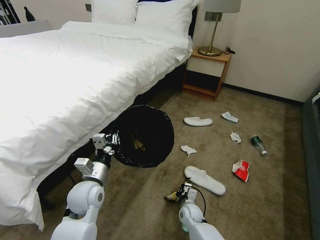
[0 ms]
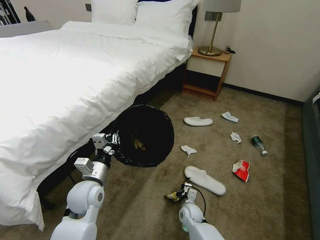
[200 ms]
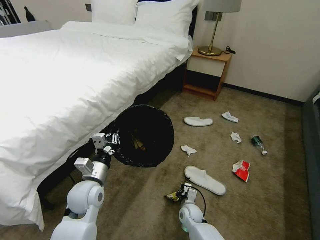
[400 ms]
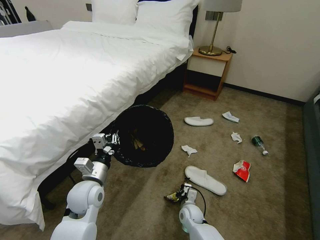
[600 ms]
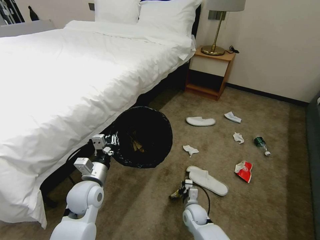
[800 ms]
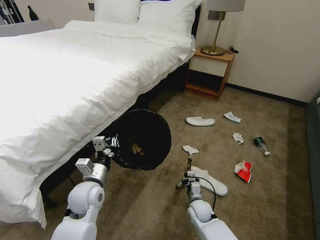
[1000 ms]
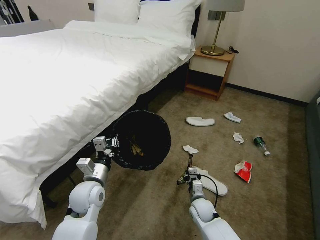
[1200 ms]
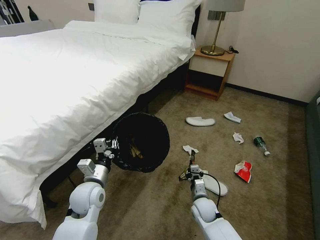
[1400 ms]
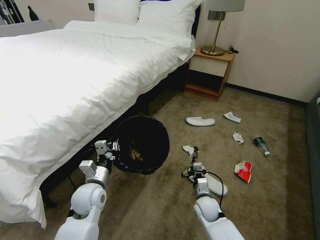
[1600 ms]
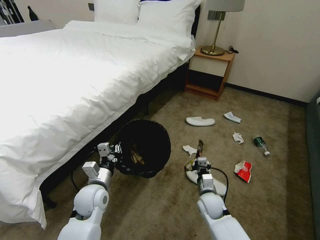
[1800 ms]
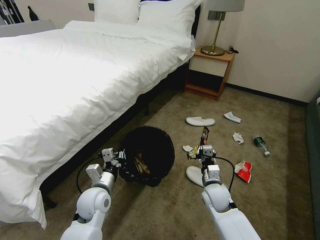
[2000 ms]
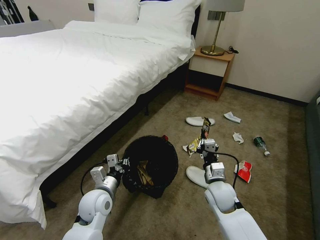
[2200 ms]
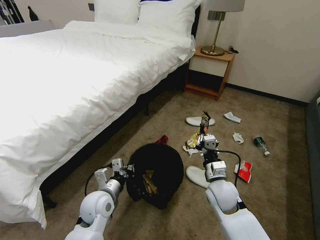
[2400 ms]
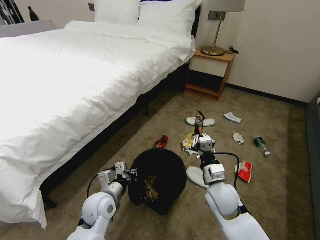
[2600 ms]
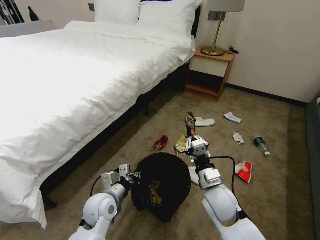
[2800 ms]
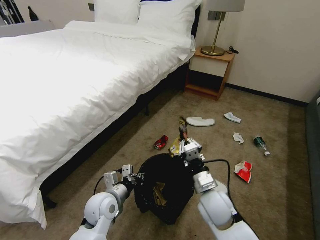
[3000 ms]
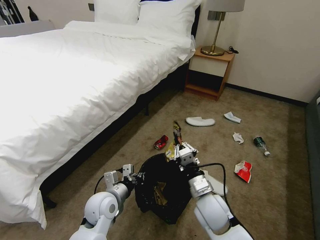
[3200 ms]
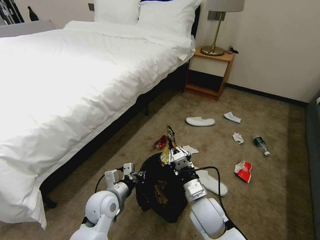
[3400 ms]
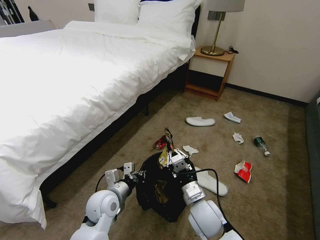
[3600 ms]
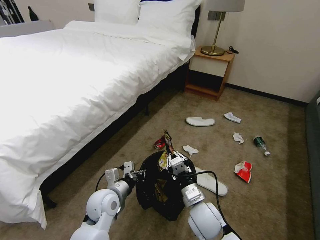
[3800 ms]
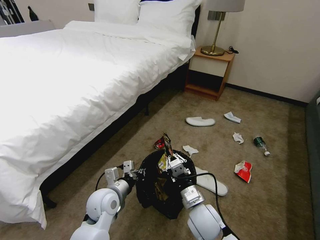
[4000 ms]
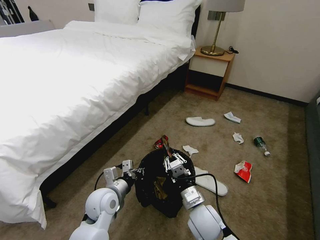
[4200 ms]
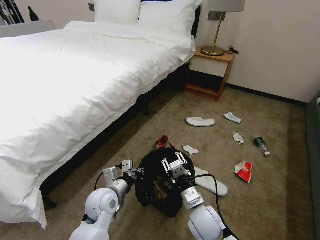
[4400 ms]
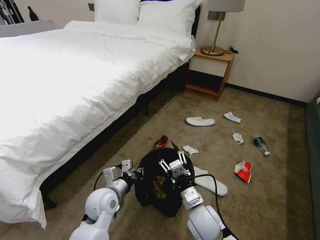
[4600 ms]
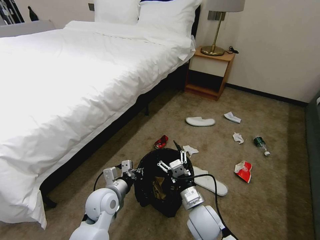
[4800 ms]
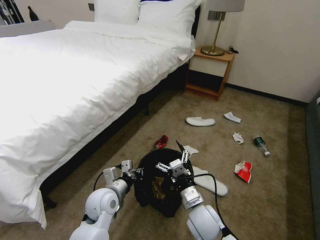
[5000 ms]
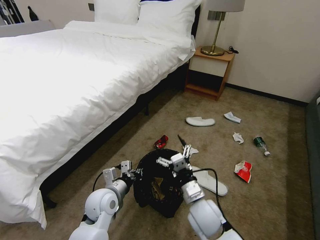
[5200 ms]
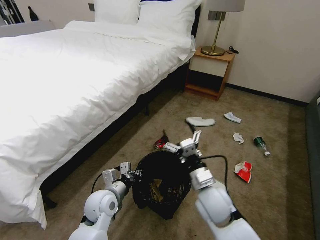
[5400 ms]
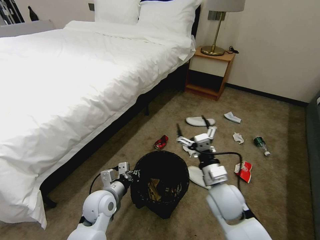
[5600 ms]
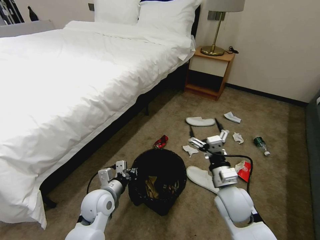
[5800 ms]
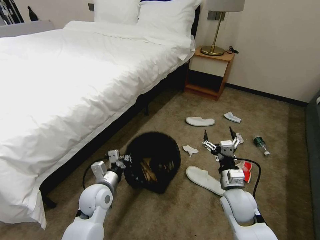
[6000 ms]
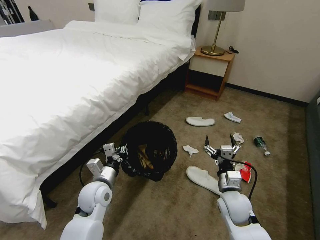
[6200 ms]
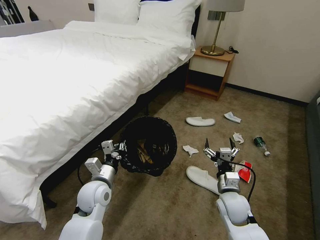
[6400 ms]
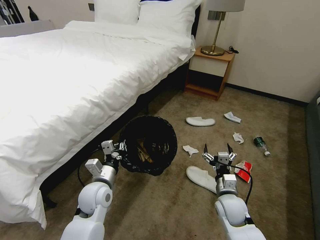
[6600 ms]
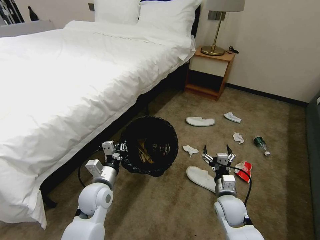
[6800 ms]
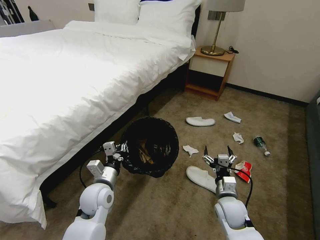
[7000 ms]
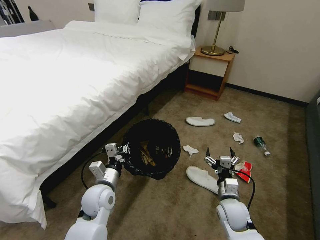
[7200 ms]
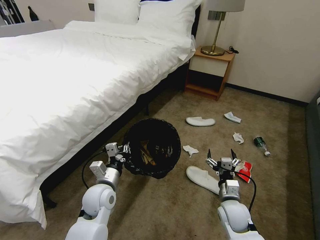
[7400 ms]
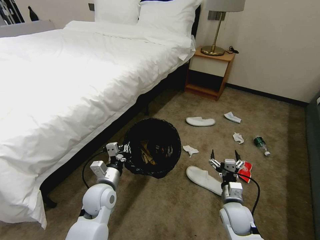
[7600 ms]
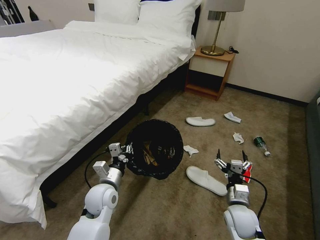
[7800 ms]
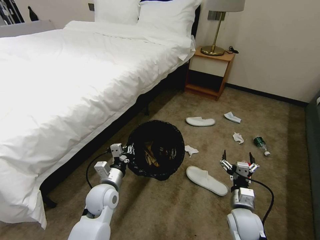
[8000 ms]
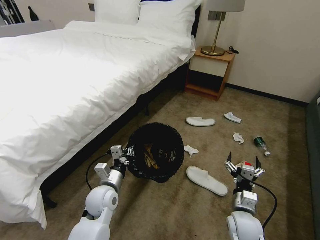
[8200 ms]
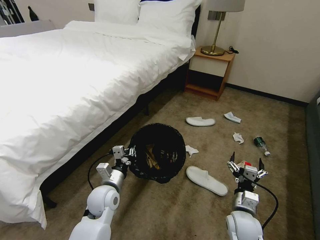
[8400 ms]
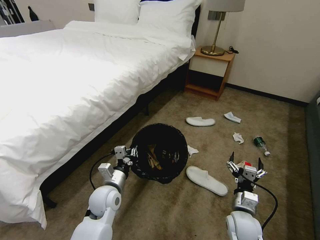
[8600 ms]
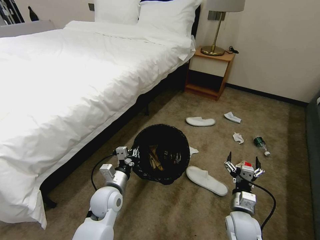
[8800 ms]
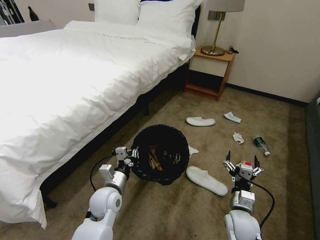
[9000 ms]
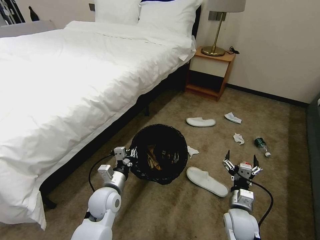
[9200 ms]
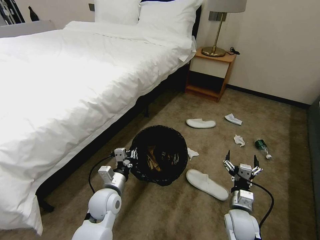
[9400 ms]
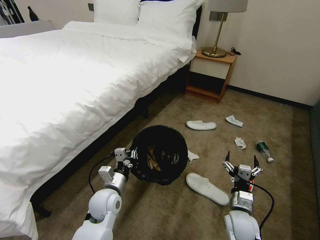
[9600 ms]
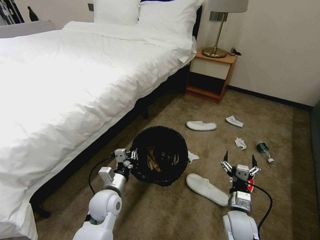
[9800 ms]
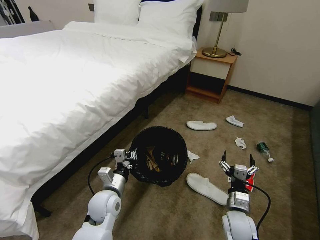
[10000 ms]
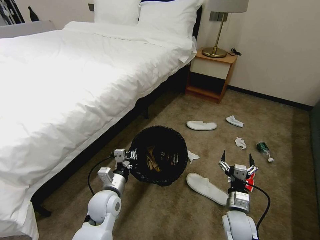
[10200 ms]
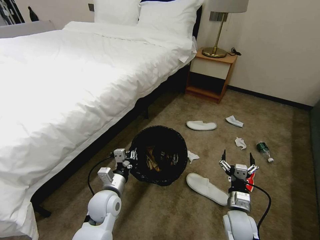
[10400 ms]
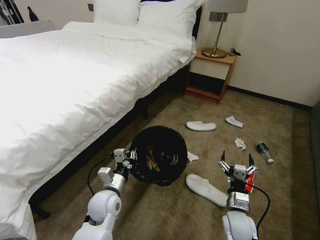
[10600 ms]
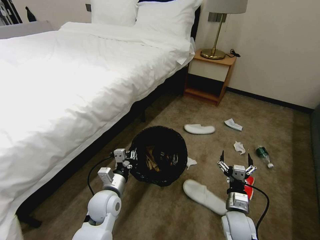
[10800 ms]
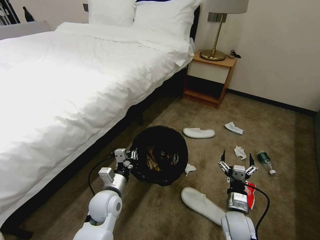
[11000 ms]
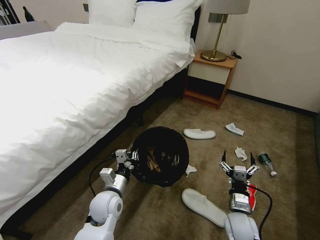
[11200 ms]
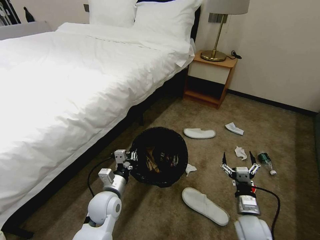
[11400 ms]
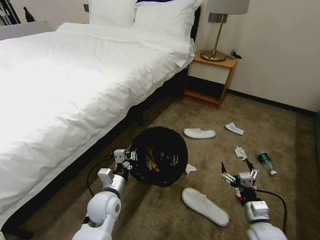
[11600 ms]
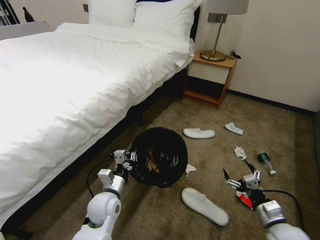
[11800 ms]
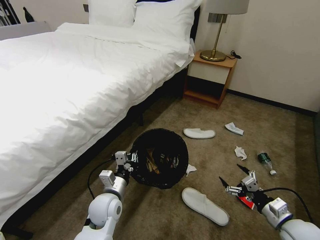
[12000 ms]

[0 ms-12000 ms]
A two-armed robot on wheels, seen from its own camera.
Task of the whole recording: Pick up the trash bin, then pick up the garbage on the floor and place it into the trash bin.
0 ms to 1600 ms: The right gripper goes approximately 10 cm upward and to the right.
1600 ms to 3000 ms: The right gripper travels upward by some 15 cm.
3000 ms to 4400 ms: The right gripper ends up approximately 5 cm from where it was.
4400 ms to 6000 ms: The right gripper shifts approximately 10 cm to the right, and opens its fingers.
6000 ms to 7600 ms: The right gripper travels downward by about 10 cm.
7600 ms to 10400 ms: There are only small adjustments of the grippers.
10400 ms to 12000 ms: The right gripper heads to the right, covering some 15 cm.

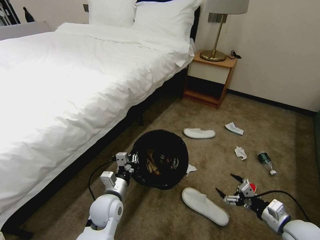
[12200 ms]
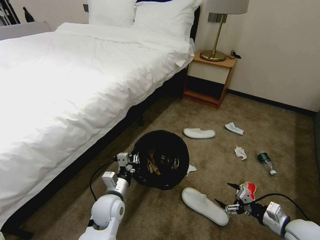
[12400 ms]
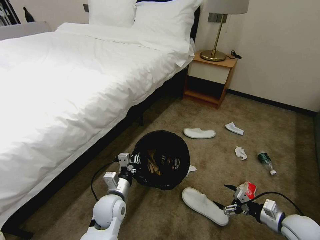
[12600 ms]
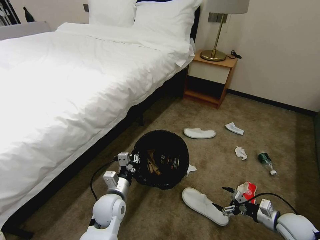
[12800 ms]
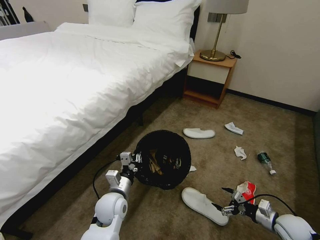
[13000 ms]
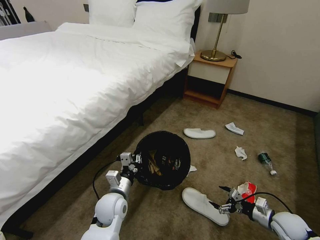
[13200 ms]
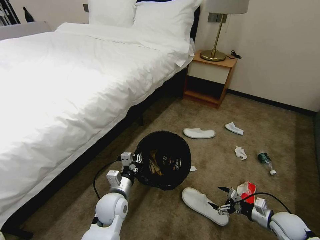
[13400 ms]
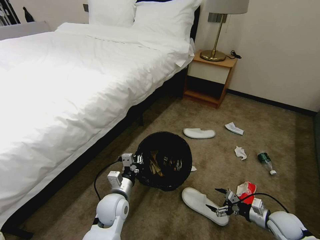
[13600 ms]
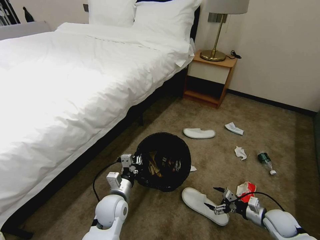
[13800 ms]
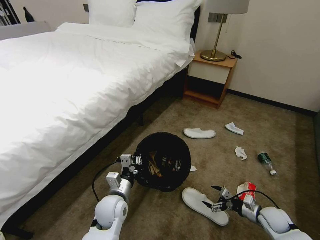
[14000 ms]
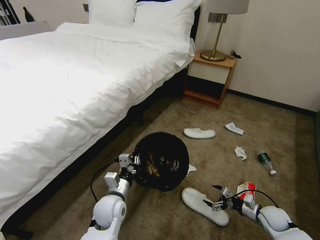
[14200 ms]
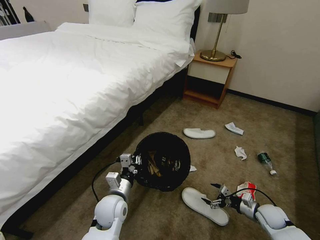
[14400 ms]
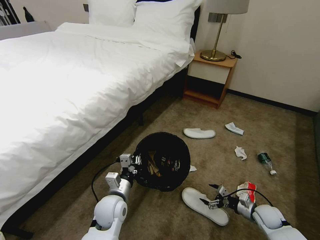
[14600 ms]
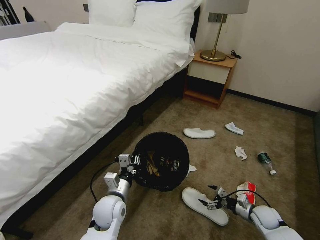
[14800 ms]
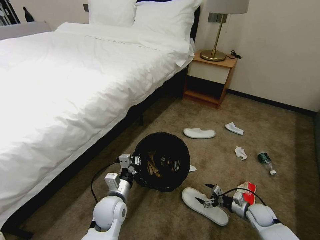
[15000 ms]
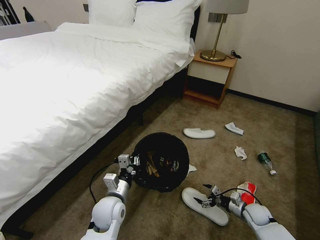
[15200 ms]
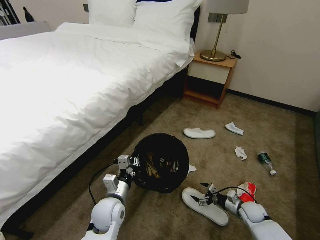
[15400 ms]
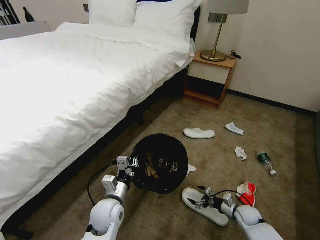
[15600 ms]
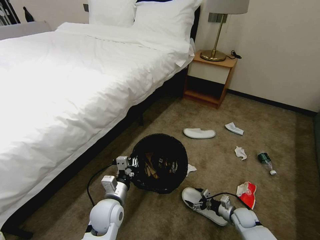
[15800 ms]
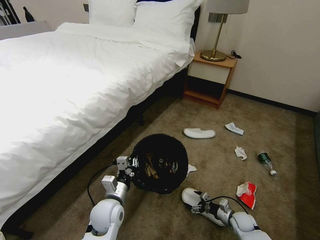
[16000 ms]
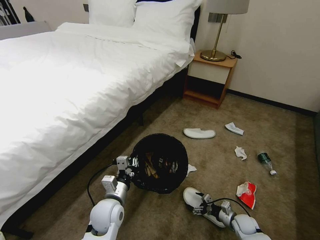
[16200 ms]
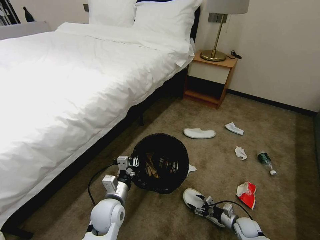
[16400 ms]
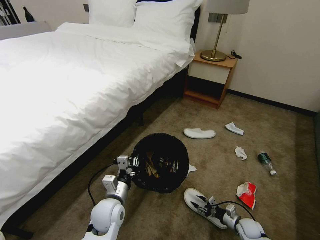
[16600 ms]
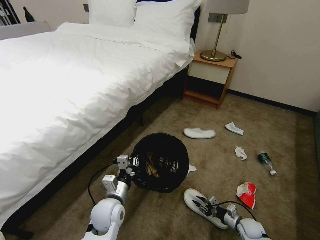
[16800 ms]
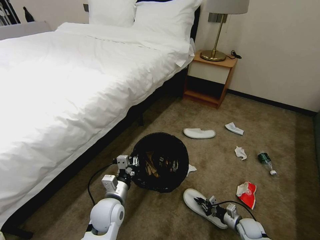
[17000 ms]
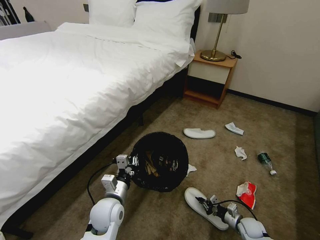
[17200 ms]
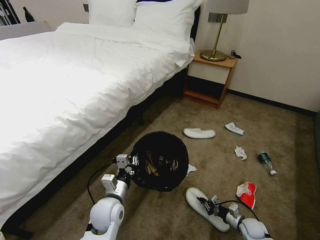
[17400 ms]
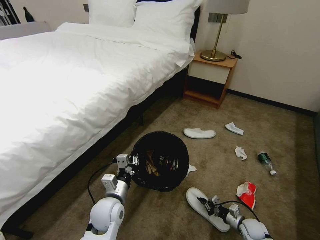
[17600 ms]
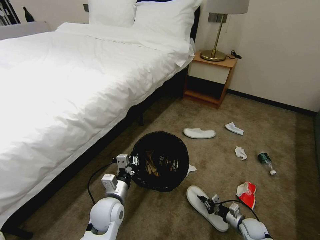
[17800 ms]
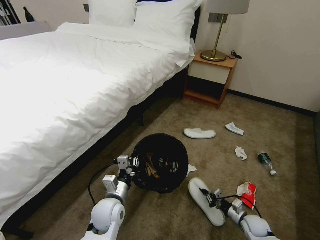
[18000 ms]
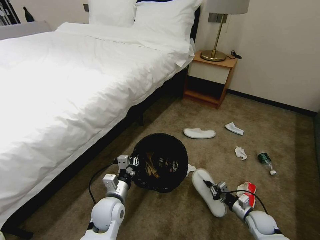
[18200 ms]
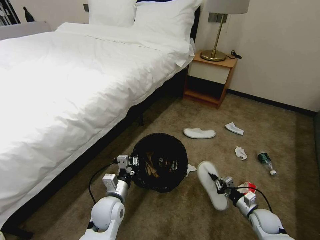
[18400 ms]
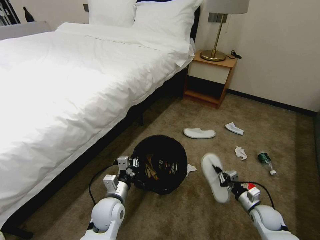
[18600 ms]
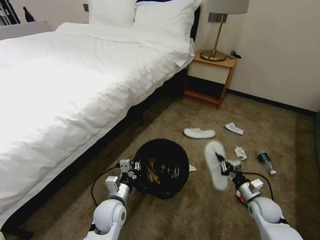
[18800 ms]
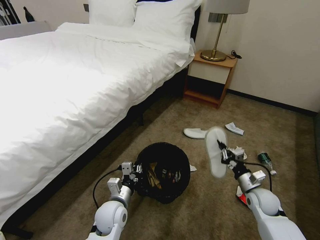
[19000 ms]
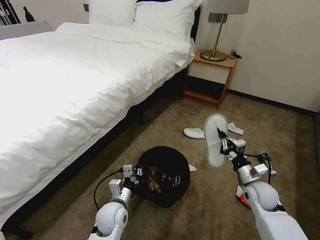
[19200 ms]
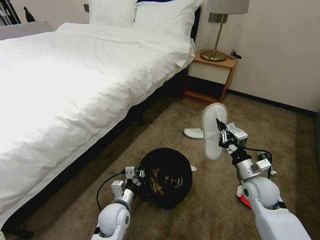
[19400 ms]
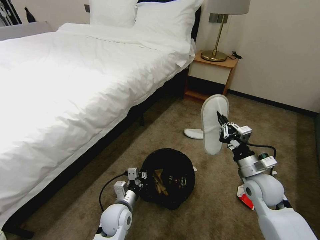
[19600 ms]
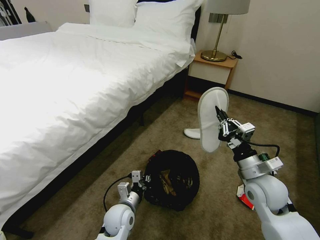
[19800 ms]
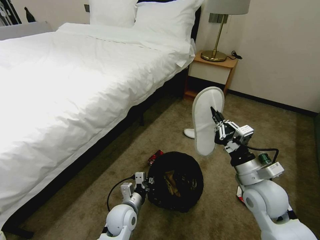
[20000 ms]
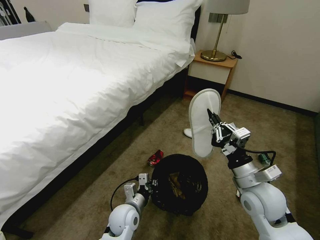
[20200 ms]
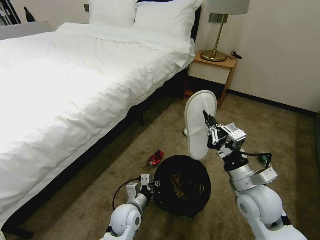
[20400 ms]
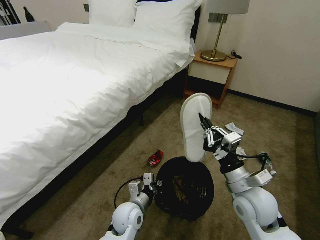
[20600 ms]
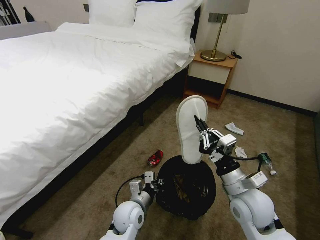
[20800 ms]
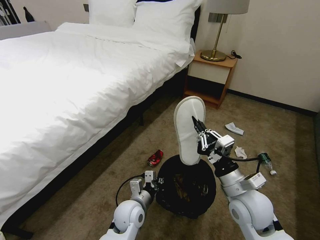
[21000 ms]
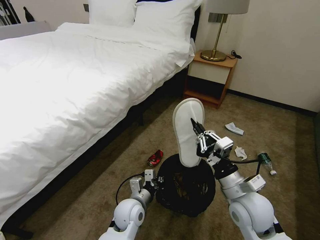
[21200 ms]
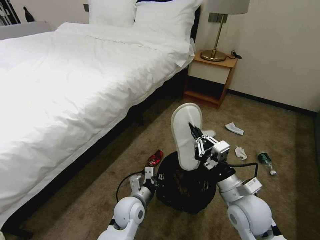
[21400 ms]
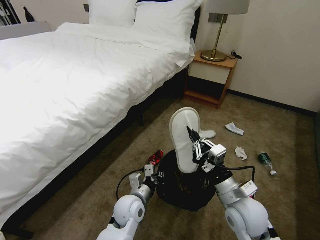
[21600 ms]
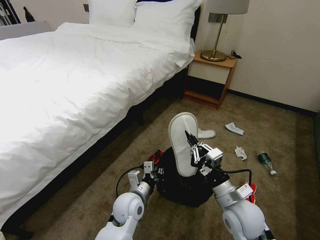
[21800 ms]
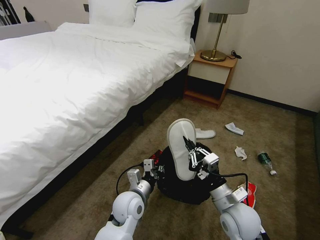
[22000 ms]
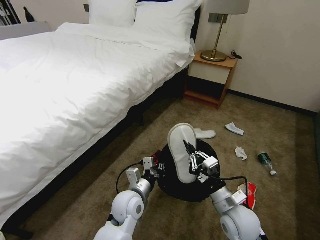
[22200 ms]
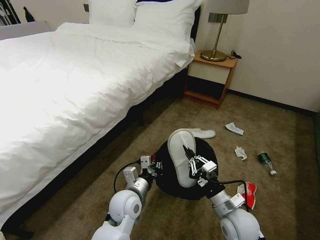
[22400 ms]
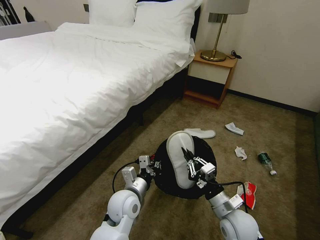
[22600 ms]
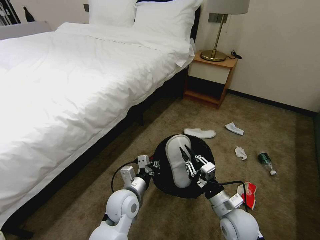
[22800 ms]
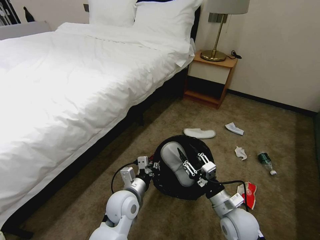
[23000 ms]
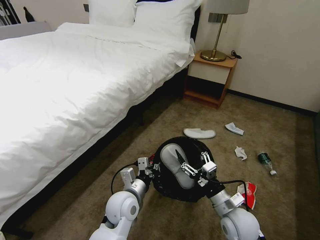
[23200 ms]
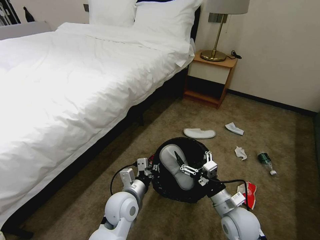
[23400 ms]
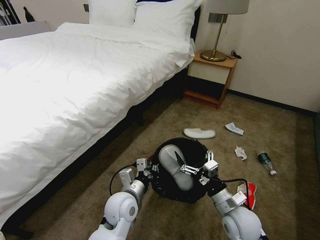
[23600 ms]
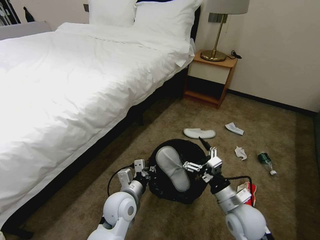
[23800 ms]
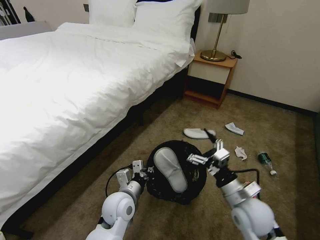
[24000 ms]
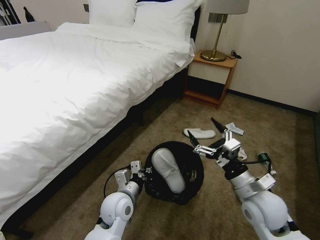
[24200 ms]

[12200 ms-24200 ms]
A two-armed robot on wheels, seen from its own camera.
Task of the whole recording: Pick up the trash bin, then pick up the garbage on the floor and place it into the trash bin.
12200 ms to 13800 ms: The right gripper moves downward and forward, approximately 10 cm.
13800 ms to 15200 ms: The right gripper travels downward by about 5 cm.
15200 ms to 16600 ms: The right gripper moves downward, roughly 5 cm, and closes.
16600 ms to 18200 ms: The right gripper moves upward, some 5 cm, and closes its fingers.
18200 ms to 19800 ms: The right gripper travels upward by about 25 cm. The left gripper ends up some 5 cm from where it was, and closes.
19800 ms to 21200 ms: The right gripper is displaced to the left by about 5 cm.
21200 ms to 22600 ms: The left gripper is displaced upward by some 5 cm; the right gripper shifts approximately 10 cm downward.
22600 ms to 24200 ms: The right gripper moves upward, some 10 cm, and opens up.
